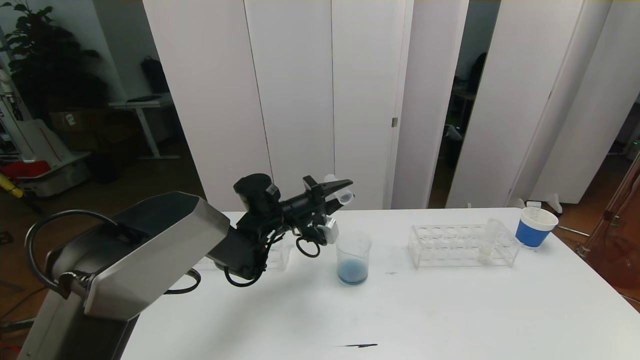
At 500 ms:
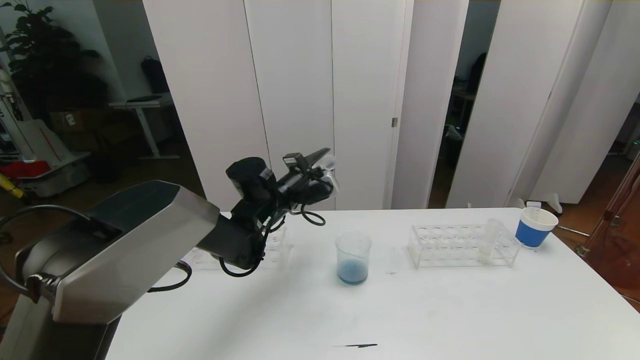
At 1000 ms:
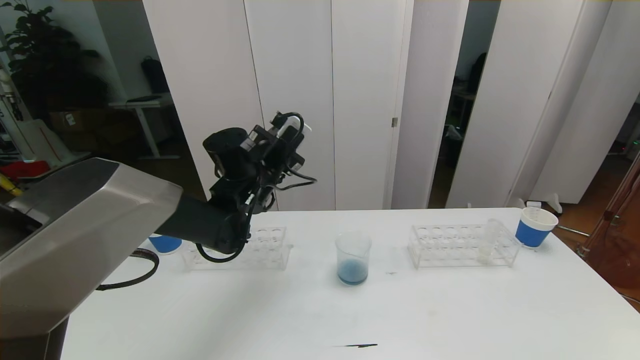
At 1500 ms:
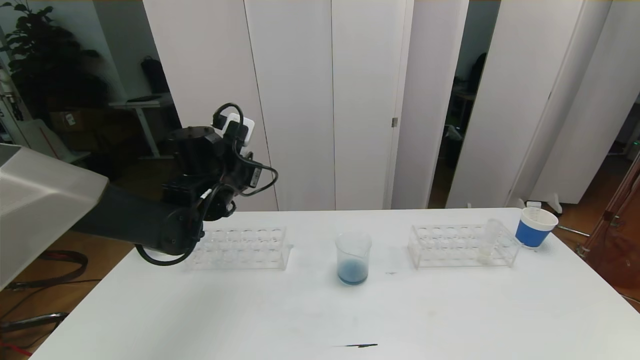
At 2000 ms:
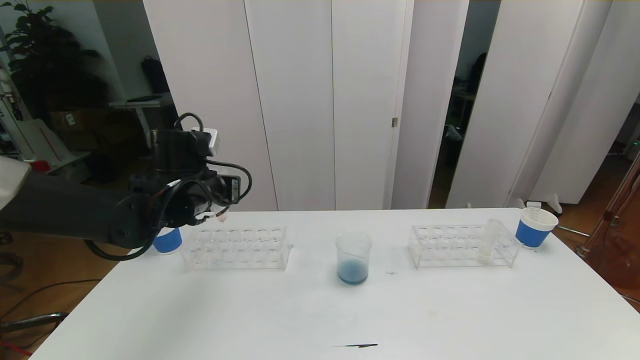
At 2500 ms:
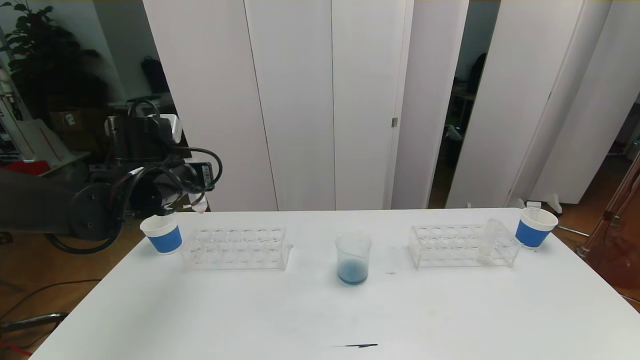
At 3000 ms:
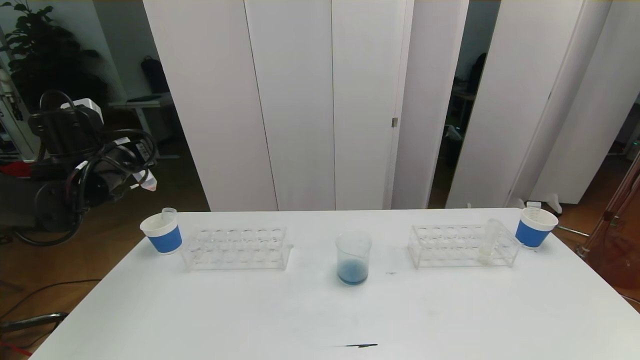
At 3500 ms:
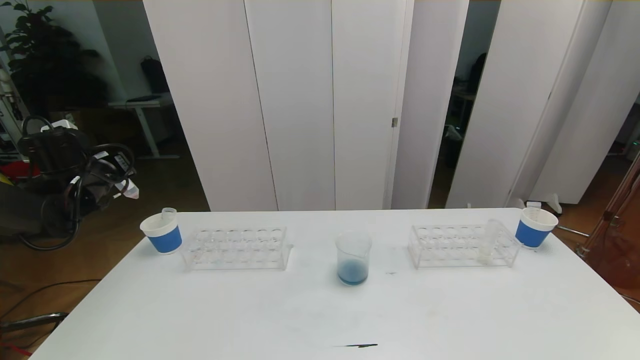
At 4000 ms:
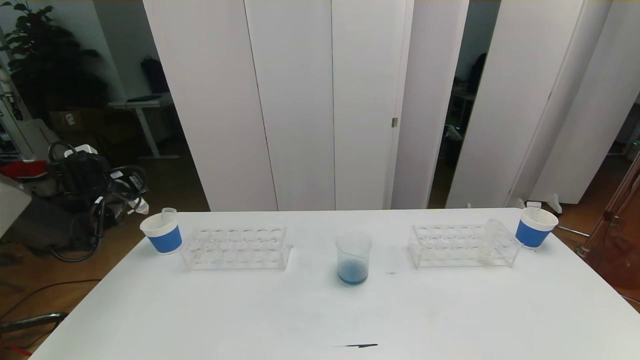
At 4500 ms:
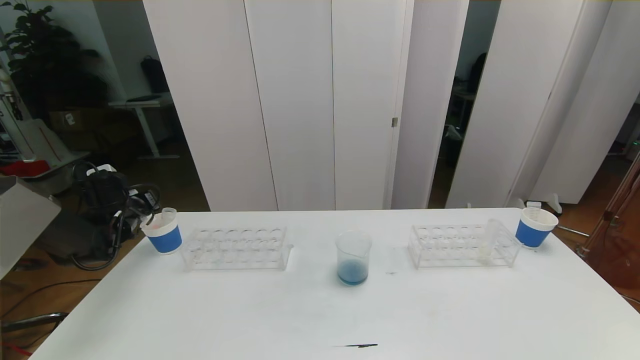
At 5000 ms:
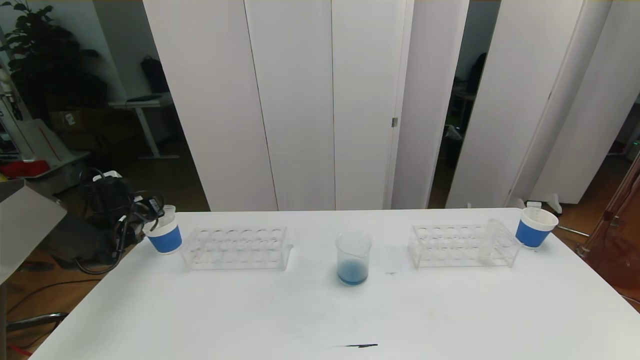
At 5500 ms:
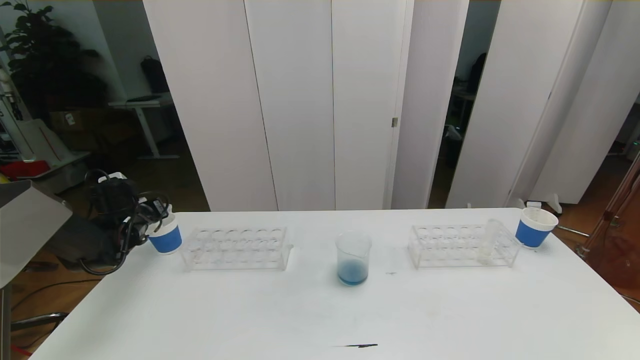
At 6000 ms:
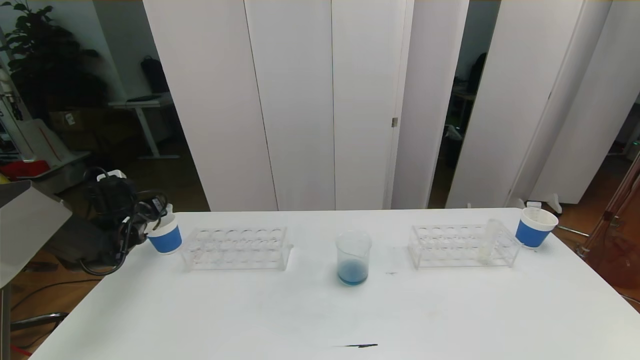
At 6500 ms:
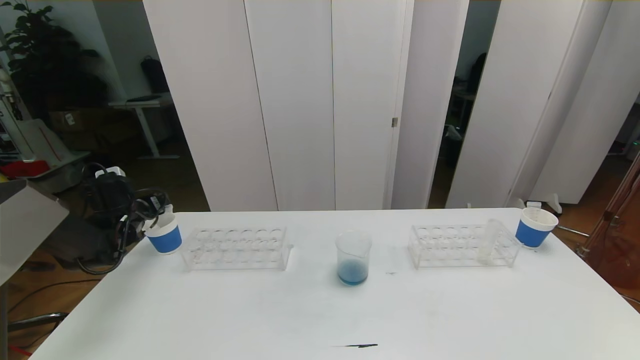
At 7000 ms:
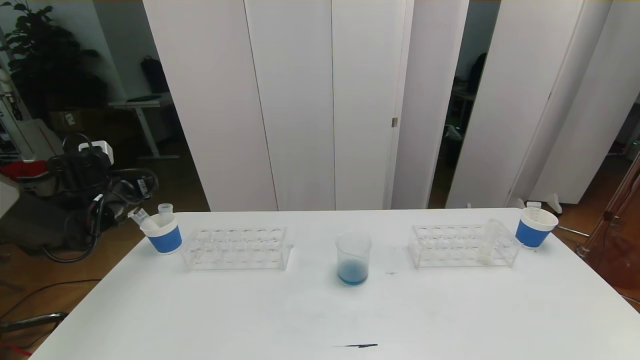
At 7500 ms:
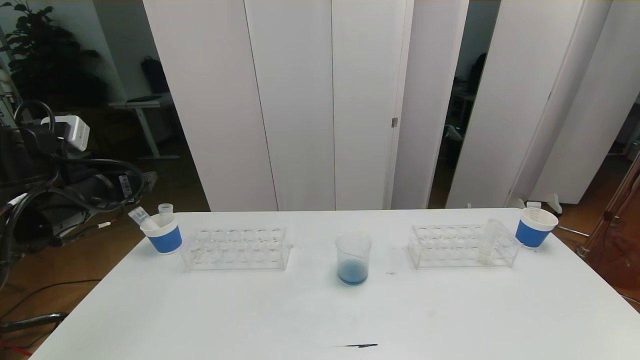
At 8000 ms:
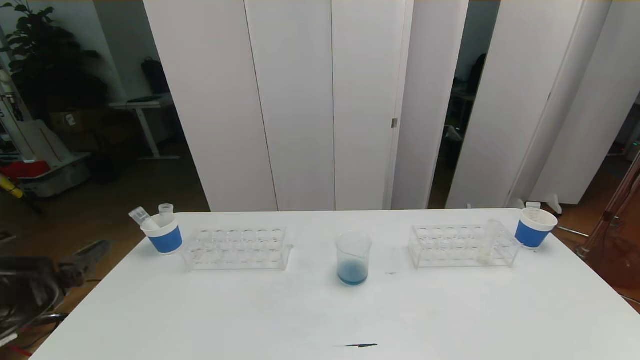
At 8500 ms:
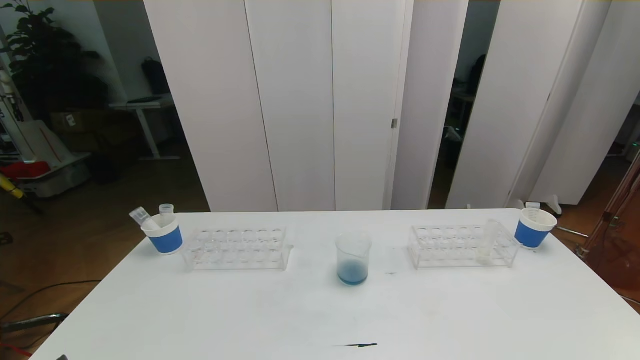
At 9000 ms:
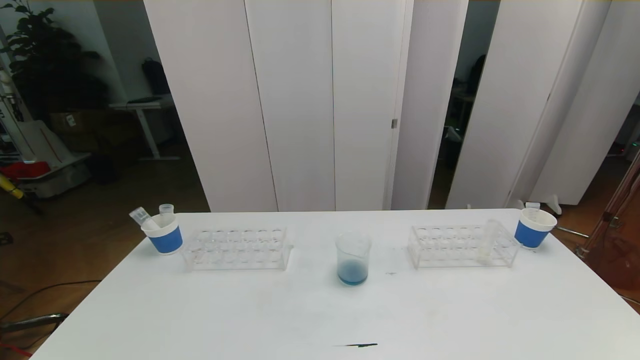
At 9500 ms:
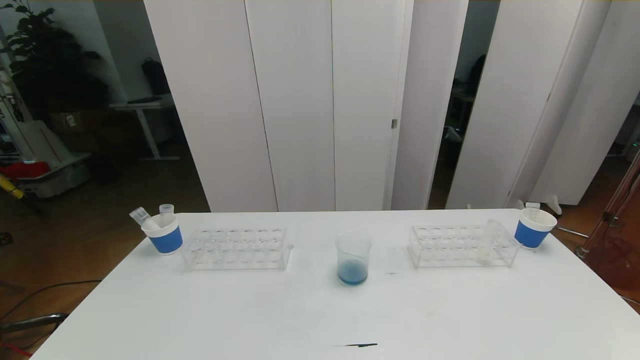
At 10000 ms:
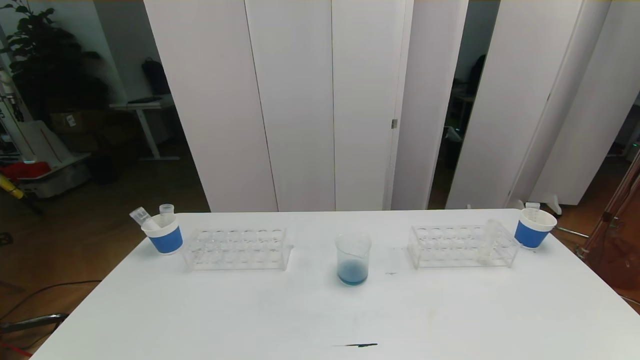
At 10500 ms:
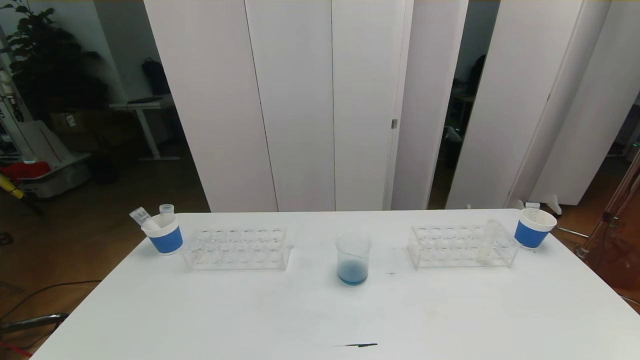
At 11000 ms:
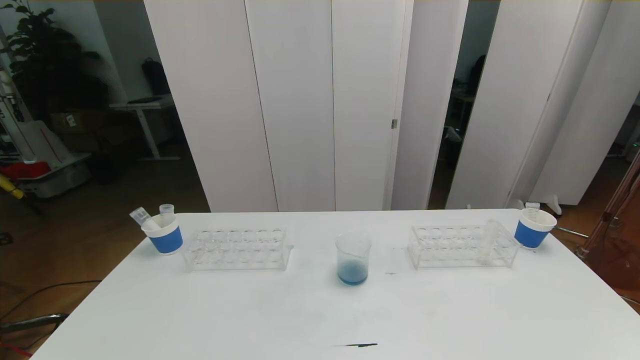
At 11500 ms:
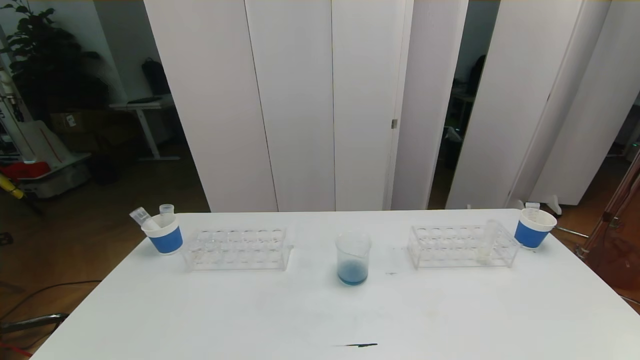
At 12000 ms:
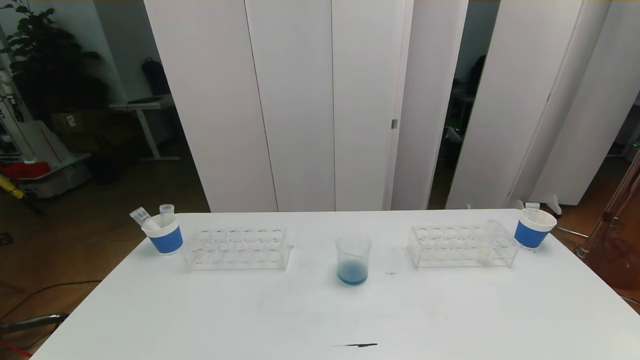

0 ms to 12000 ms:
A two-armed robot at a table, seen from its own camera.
Task of the whole recording: pick up the test tube with red pigment the test tube with blue pigment and the test tube with white pigment by grippers and pour them into the beaker.
Step, 0 ms to 11000 ms: Pour the orange reagent into the graduated cylinder and place the test tube into the paper cup.
0 ms to 2000 ms: The left gripper travels to the left, upward and backward by roughly 15 cm.
2000 ms to 4000 ms: The left gripper travels to the left by roughly 20 cm.
4000 ms to 6000 ms: The left gripper moves downward, some 5 cm, and opens up.
6000 ms to 8000 ms: The left gripper heads backward and upward, covering roughly 35 cm.

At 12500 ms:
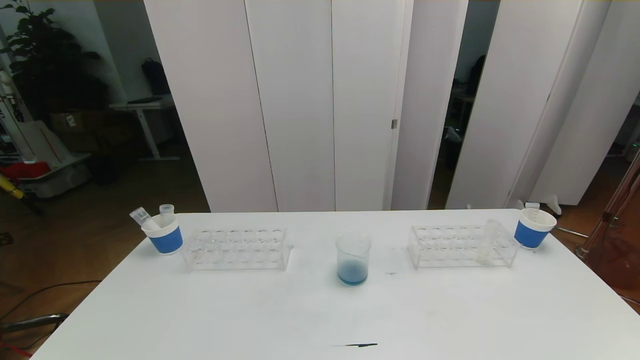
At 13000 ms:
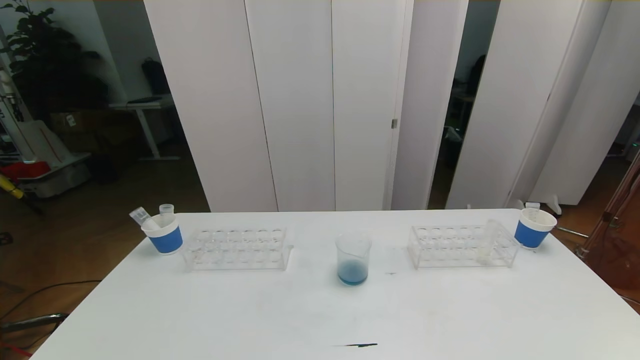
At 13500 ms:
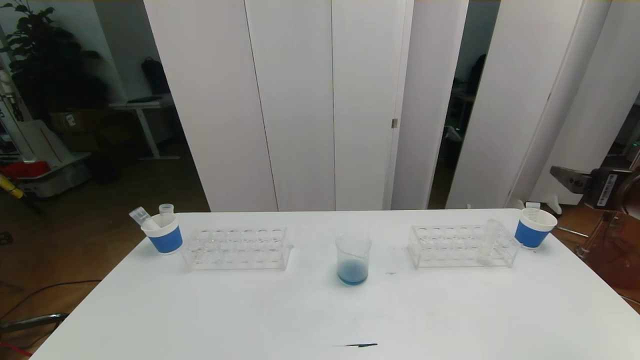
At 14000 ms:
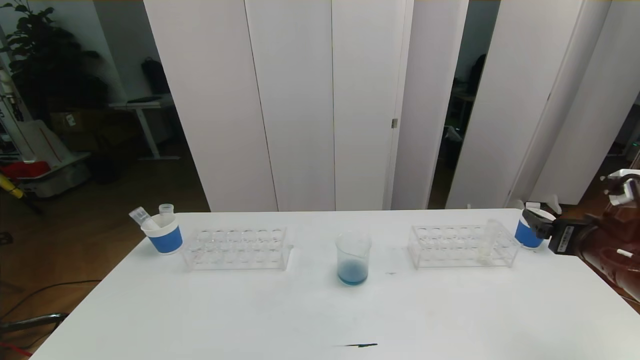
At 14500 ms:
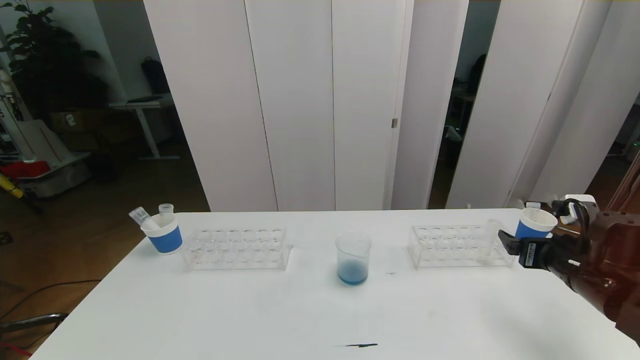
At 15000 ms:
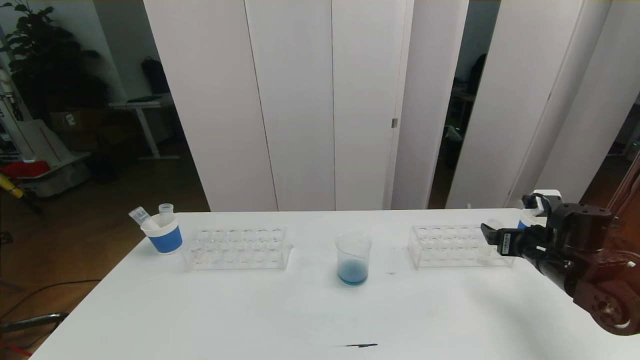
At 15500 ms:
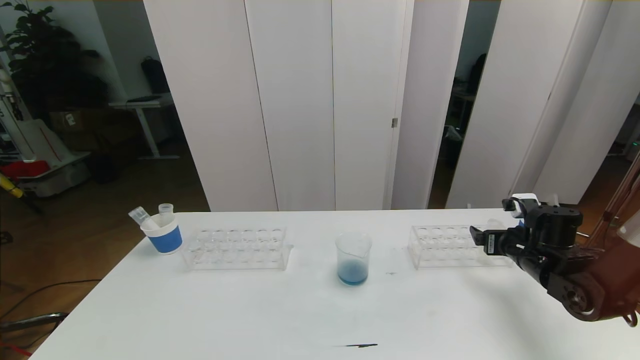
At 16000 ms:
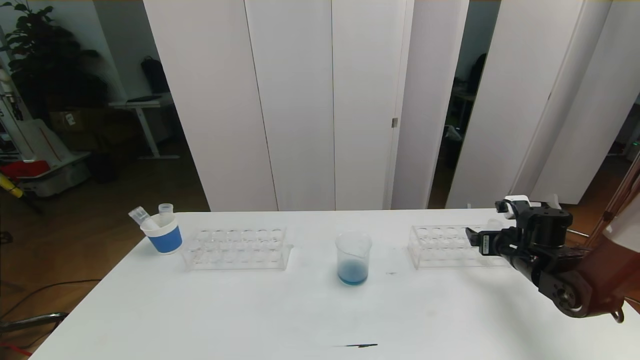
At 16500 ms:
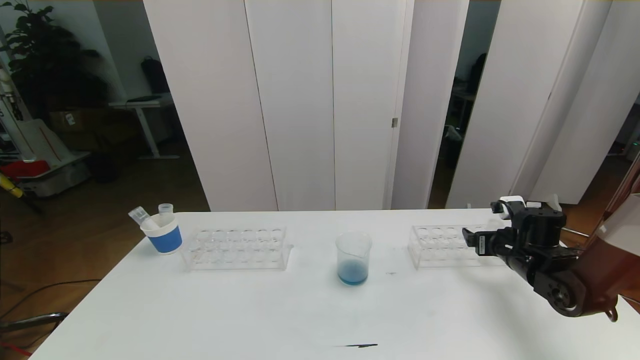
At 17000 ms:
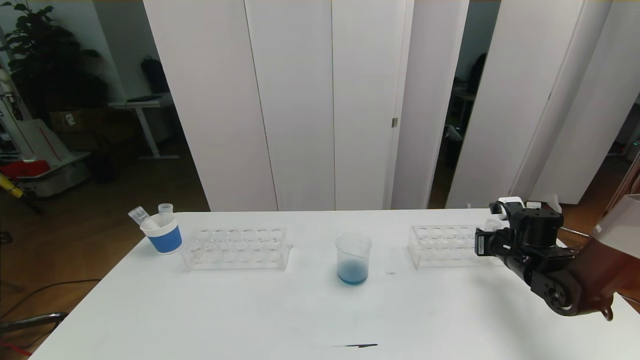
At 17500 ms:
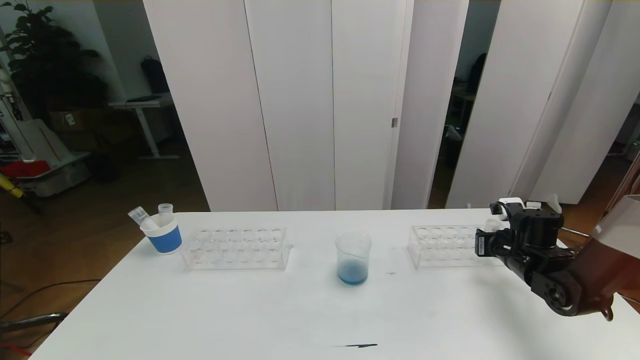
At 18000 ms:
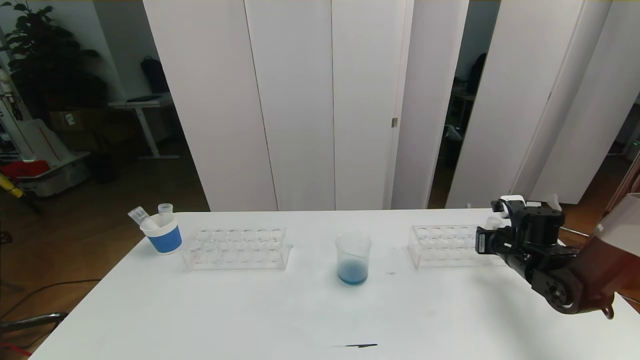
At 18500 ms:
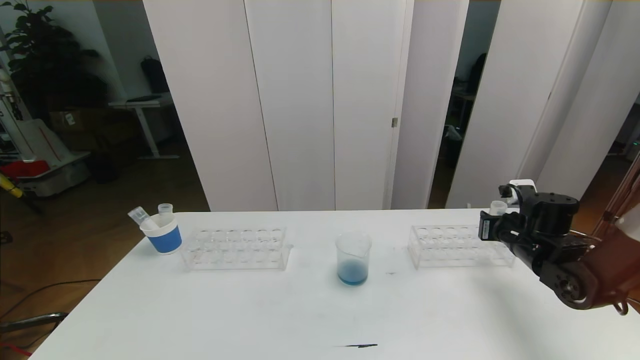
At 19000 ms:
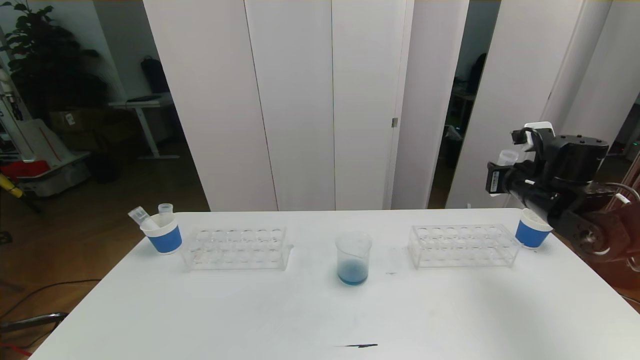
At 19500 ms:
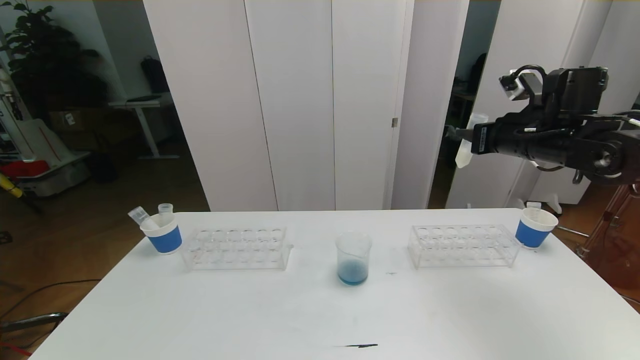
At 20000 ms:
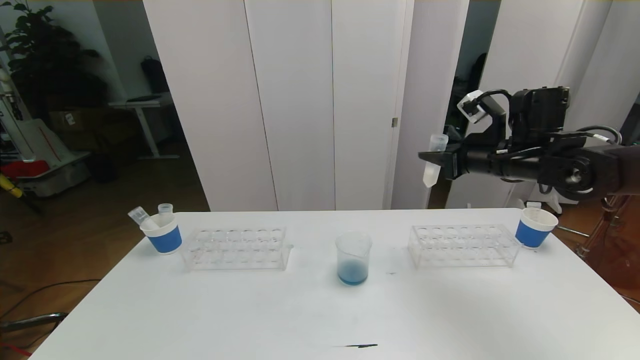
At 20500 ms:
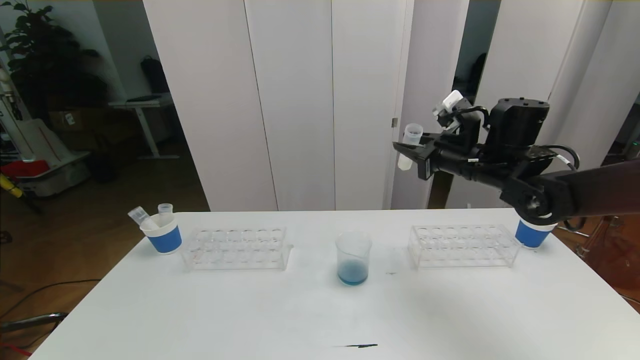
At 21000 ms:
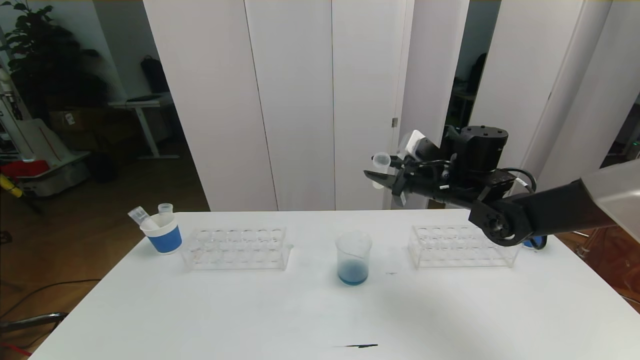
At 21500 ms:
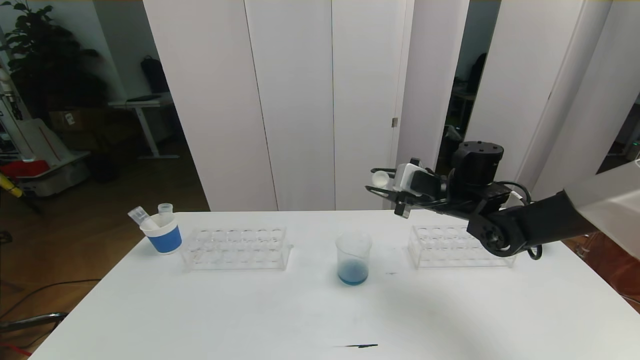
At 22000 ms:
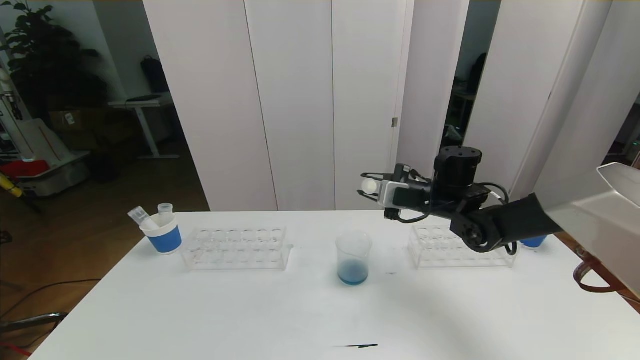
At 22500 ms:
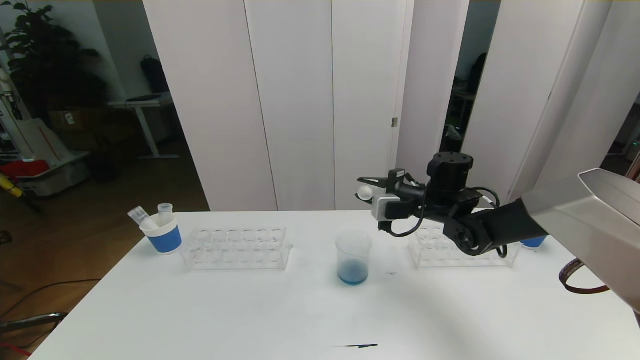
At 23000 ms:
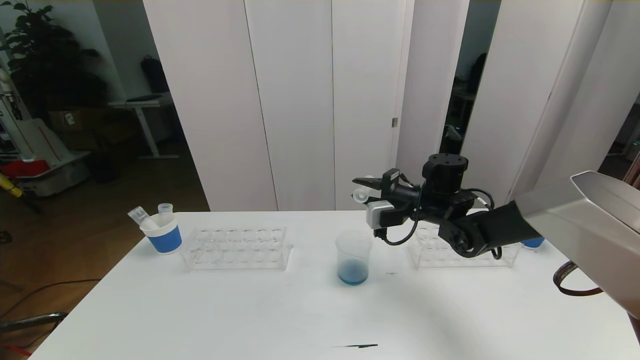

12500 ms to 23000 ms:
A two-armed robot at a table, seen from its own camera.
Task of the whole recording: pick up the test tube with red pigment the test tube with blue pigment and the test tube with white pigment by grippers and pour them into the beaker.
12500 ms to 14500 ms: The right gripper is displaced forward and downward by roughly 30 cm.
14500 ms to 16500 ms: The right gripper moves forward and downward, approximately 10 cm.
16500 ms to 19000 ms: The right gripper moves upward, roughly 15 cm, and closes its fingers.
19000 ms to 21000 ms: The right gripper goes approximately 15 cm to the left.
21000 ms to 23000 ms: The right gripper travels downward by roughly 5 cm.
